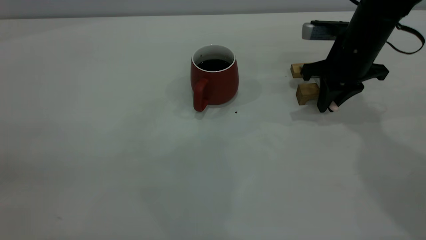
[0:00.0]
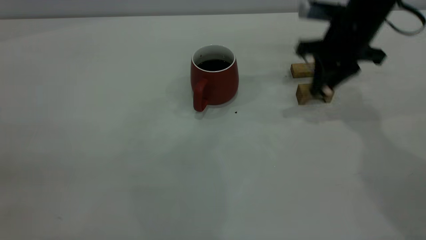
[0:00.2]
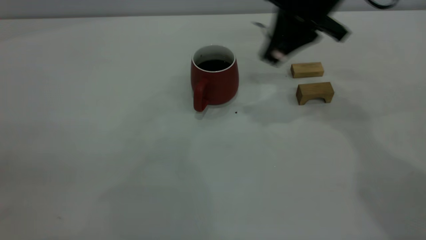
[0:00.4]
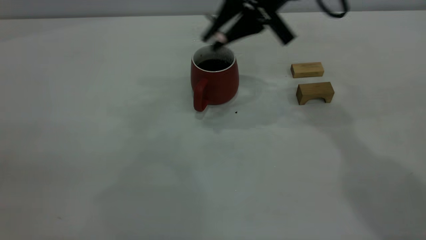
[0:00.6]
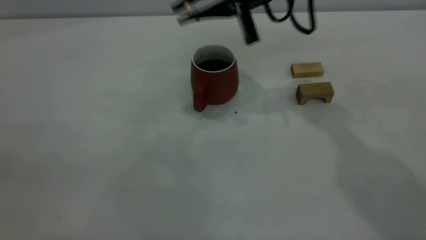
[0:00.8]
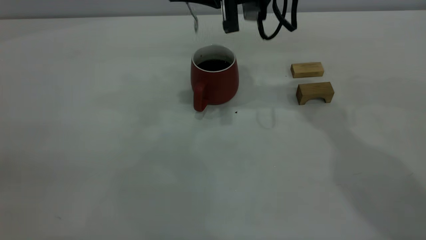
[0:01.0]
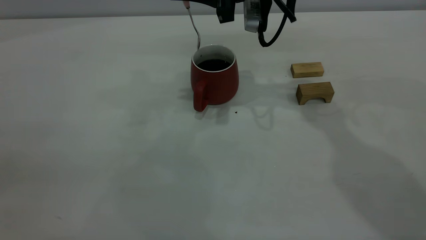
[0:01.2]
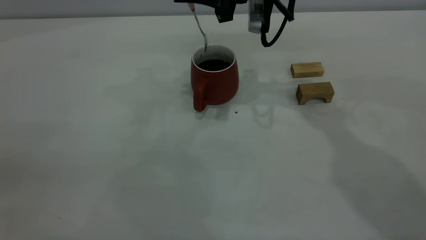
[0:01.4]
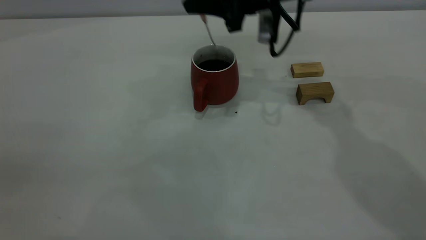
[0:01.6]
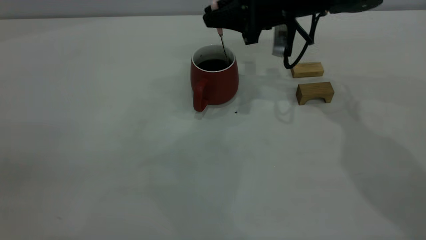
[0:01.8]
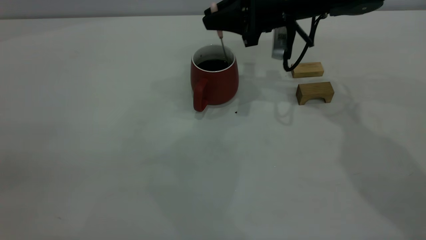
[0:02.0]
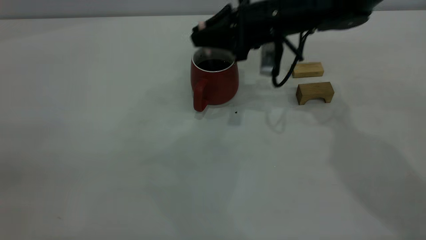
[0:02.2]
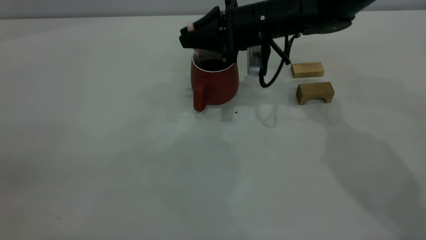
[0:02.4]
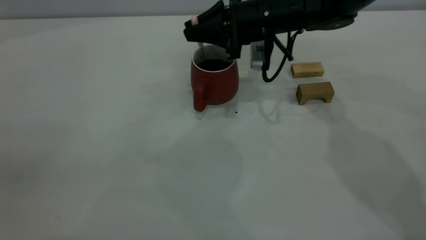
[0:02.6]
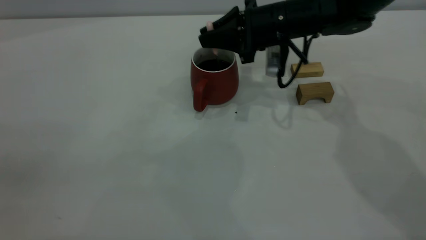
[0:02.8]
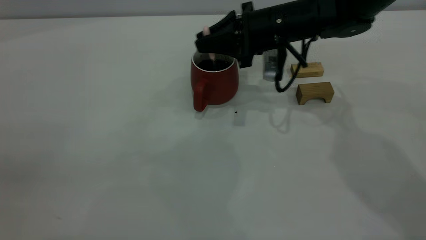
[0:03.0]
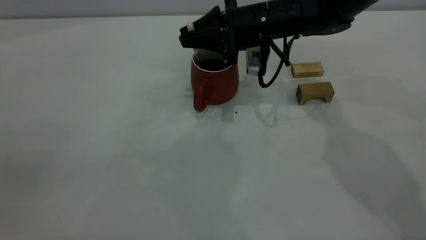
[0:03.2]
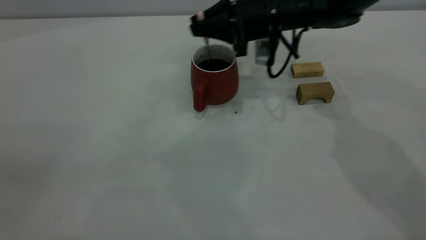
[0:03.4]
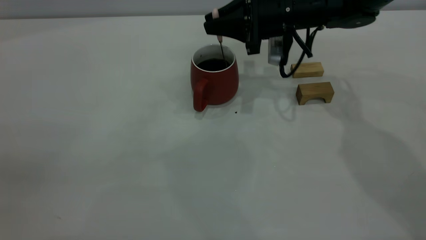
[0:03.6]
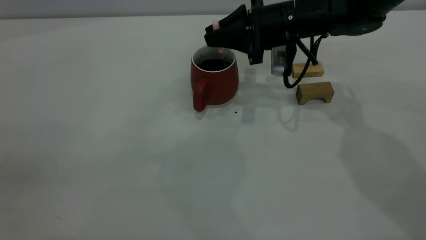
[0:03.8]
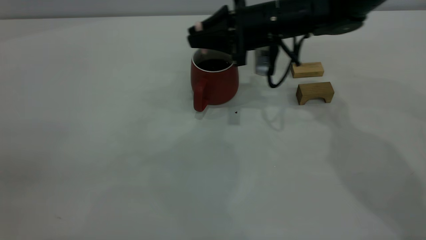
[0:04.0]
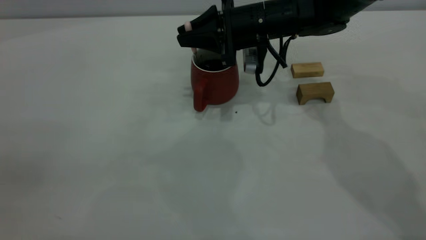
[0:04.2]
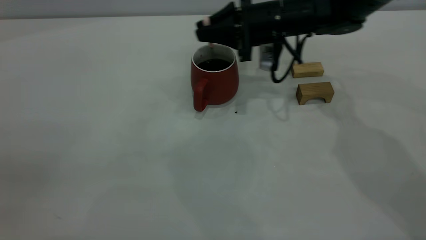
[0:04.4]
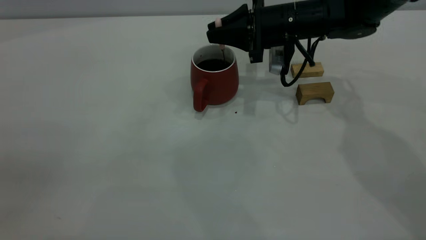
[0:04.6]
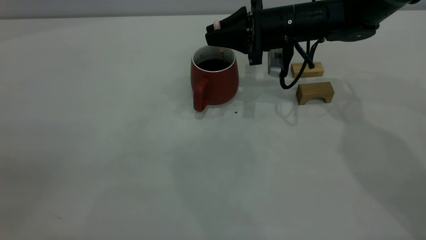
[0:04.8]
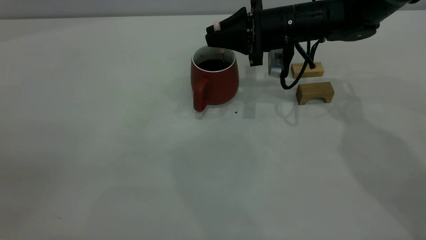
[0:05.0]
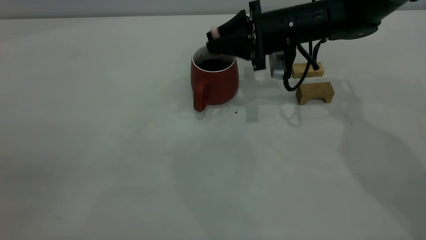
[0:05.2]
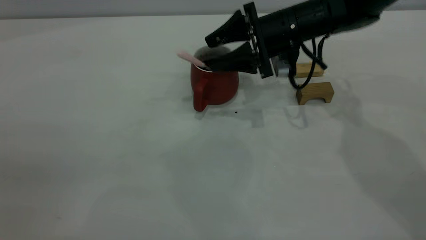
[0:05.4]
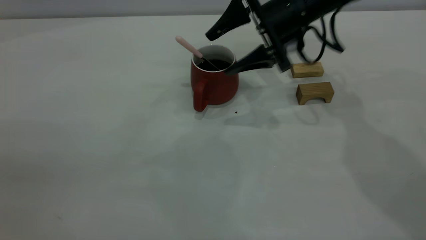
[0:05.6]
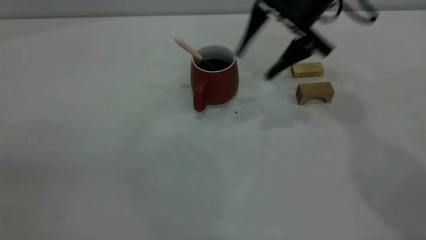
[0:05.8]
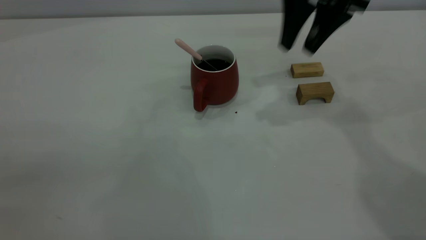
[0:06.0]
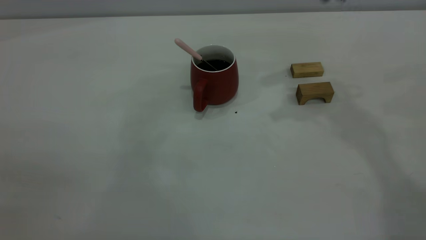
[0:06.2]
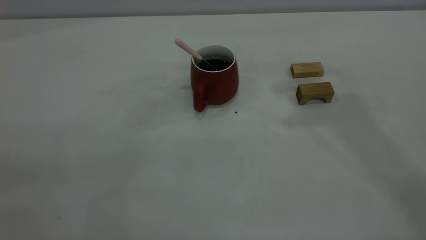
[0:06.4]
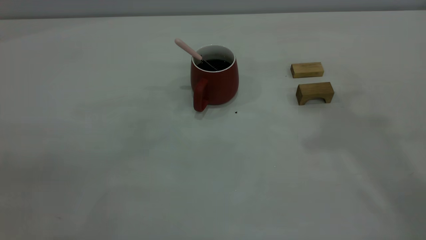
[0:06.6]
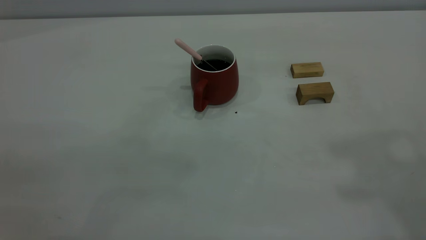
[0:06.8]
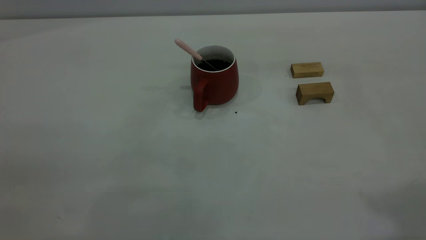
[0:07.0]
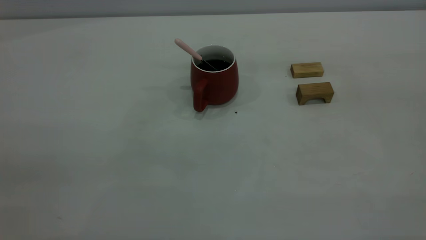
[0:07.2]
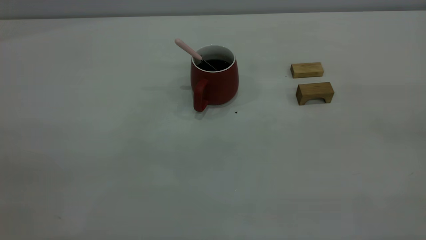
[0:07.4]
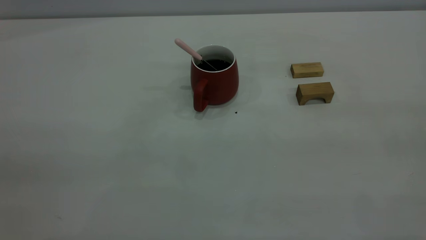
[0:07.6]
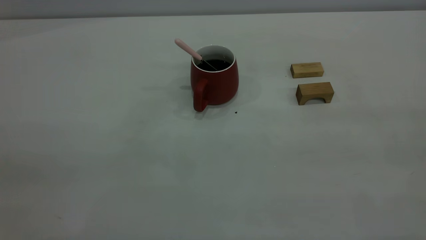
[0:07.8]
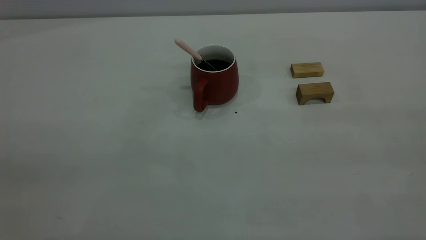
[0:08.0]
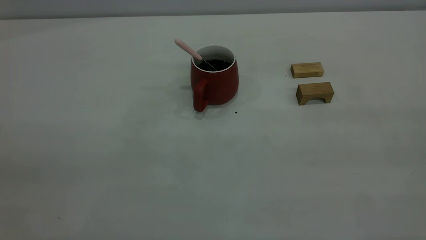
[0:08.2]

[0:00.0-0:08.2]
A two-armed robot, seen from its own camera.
Step, 0:00.4 to 0:05.6: Stir the coffee in the cup.
0:00.0 to 0:01.6: The right gripper goes about 15 cm to the left and upward.
0:01.6 to 0:03.2: The right gripper travels downward by some 5 cm.
0:03.2 to 0:05.0: The right gripper swings left and right, approximately 5 cm each way, with 2 reversals.
0:05.0 to 0:06.6: The right gripper travels upward and backward by roughly 40 cm, and opens and closes again.
